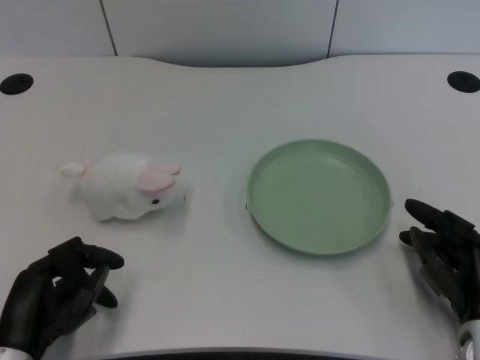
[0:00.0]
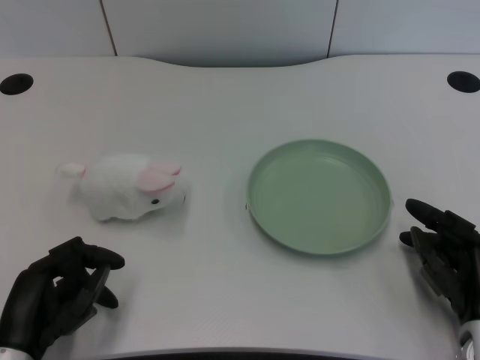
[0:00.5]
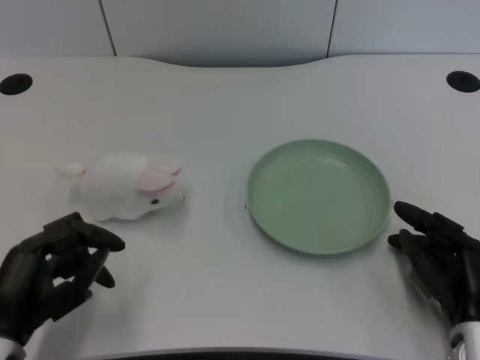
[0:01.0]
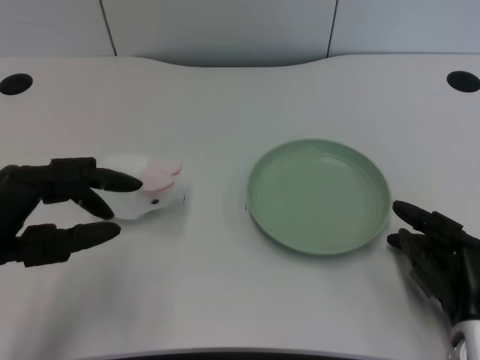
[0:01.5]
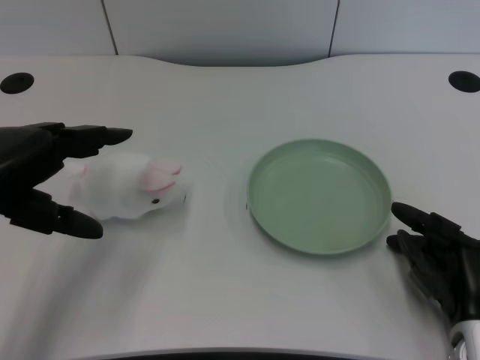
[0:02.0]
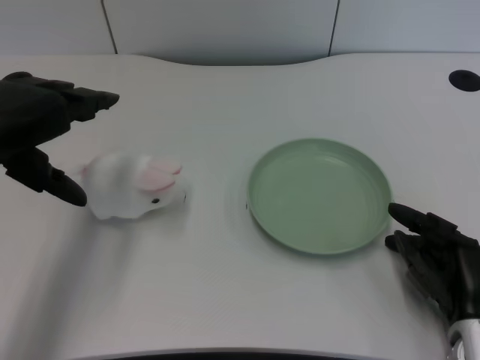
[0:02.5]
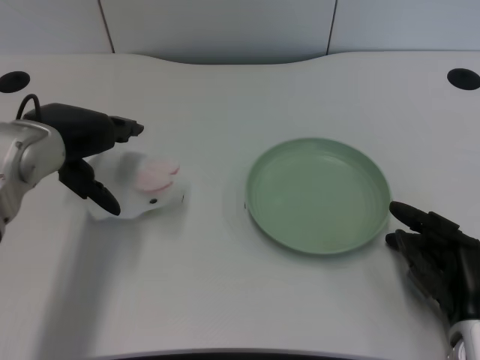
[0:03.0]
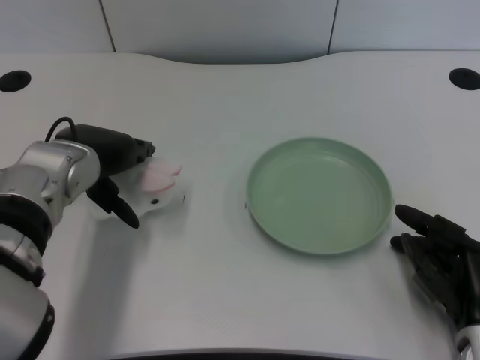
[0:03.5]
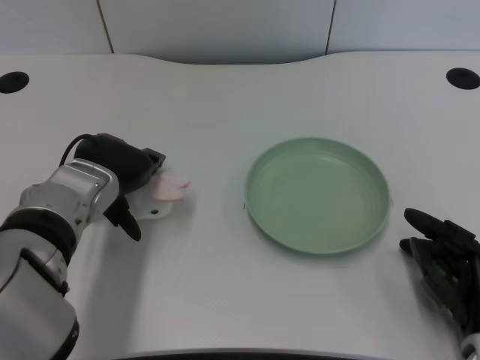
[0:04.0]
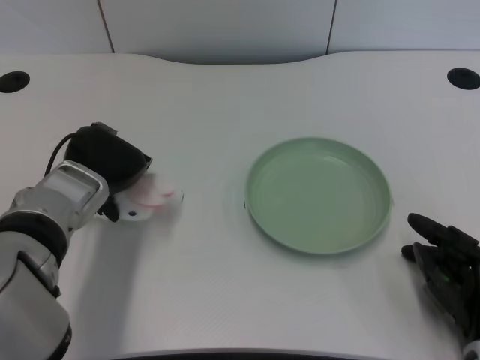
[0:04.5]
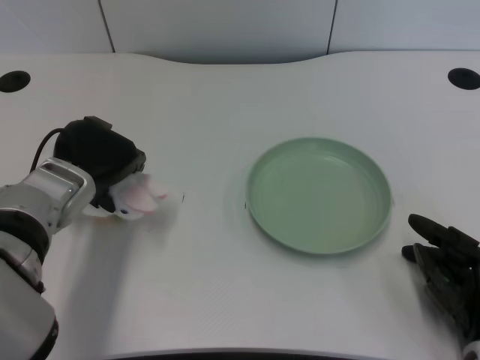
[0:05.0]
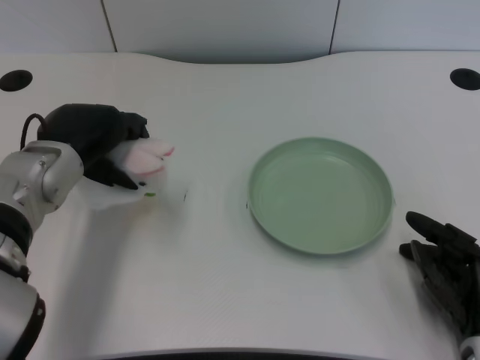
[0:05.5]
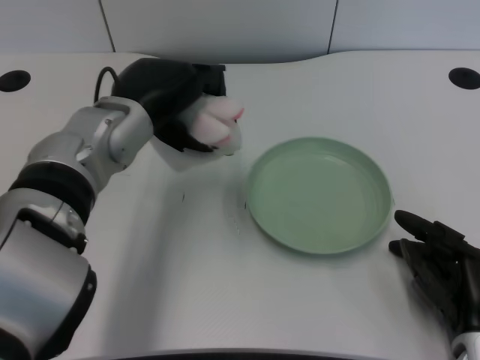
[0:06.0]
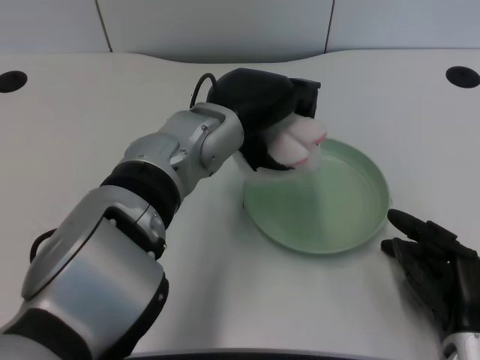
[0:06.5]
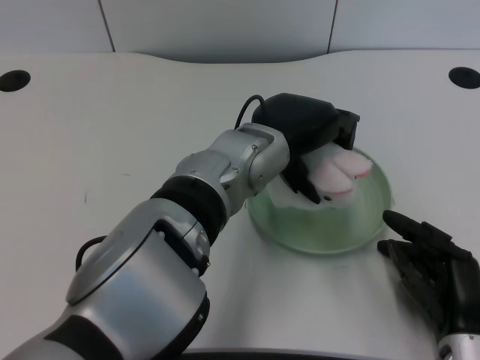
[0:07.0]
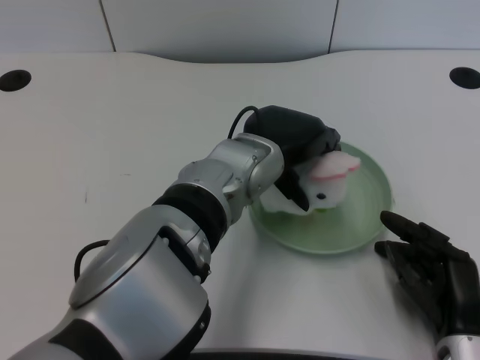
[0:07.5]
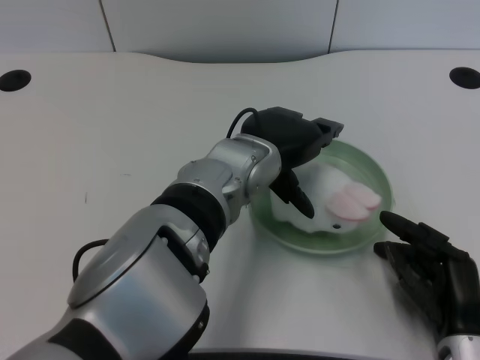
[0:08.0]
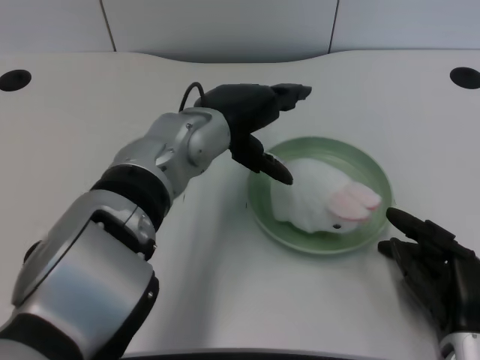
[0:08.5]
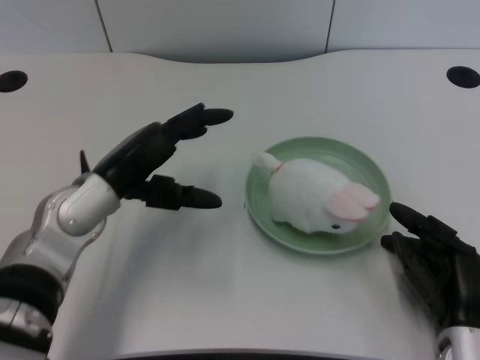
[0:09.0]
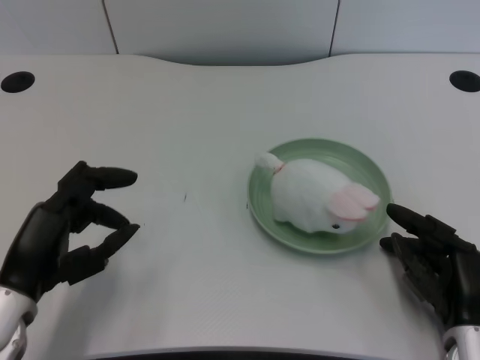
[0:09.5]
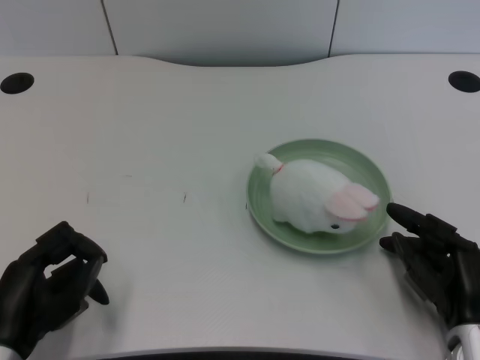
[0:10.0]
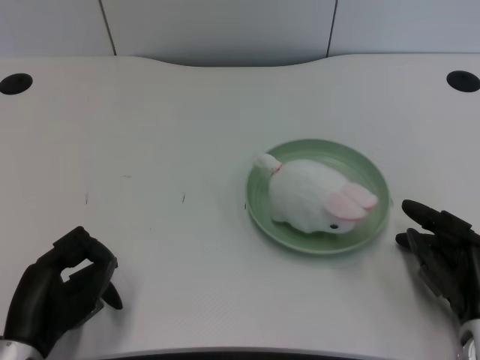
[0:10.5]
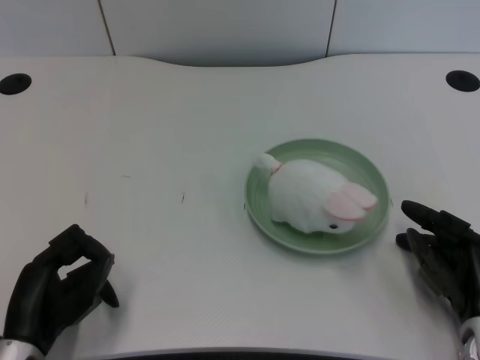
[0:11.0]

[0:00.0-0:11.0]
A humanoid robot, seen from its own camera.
Task of the whole recording: pick up the rabbit doll from the table and place it on the plate.
Step, 0:01.5 to 0:05.0: Grasp the rabbit doll with the left gripper.
Step, 0:05.5 to 0:07.5: Place the rabbit doll into the plate with the left gripper.
0:02.0 to 0:03.5: The left hand is displaced forward and to the right by approximately 15 cm.
0:05.5 to 0:07.5: The left hand heads to the right, covering approximately 20 cm.
0:07.5 to 0:09.0: The left hand travels to the left by some 15 cm.
0:09.0 to 0:11.0: The left hand shifts about 15 cm backward, downward and to the left.

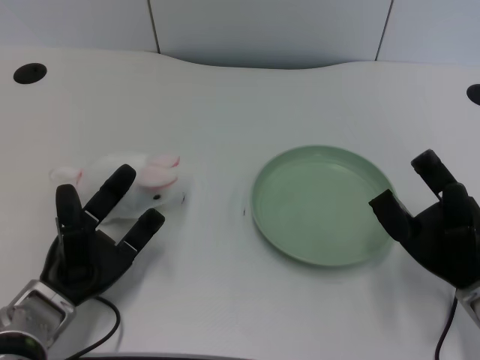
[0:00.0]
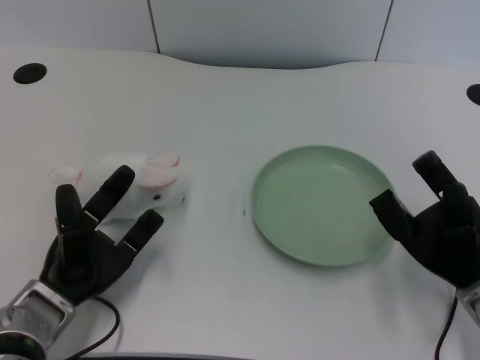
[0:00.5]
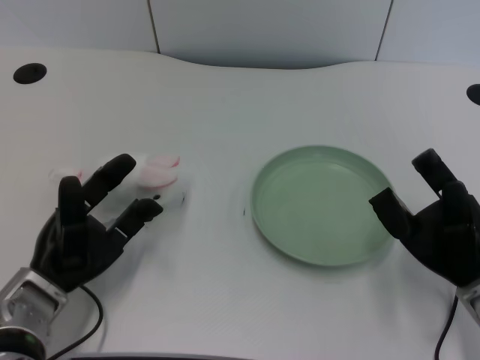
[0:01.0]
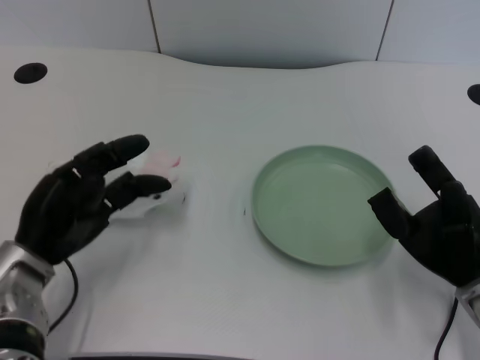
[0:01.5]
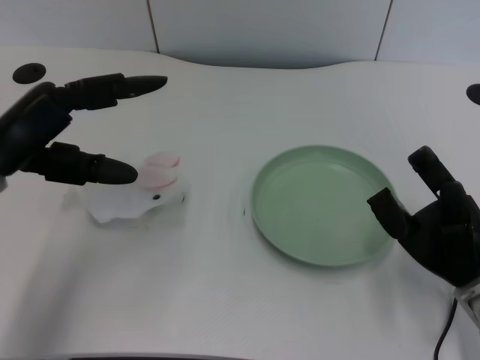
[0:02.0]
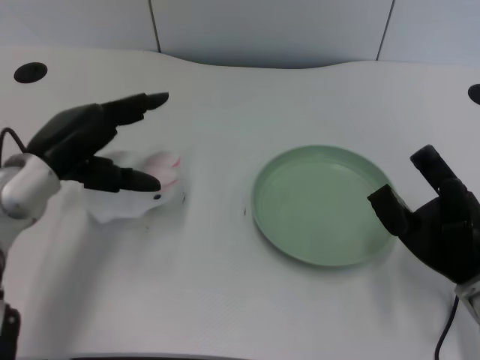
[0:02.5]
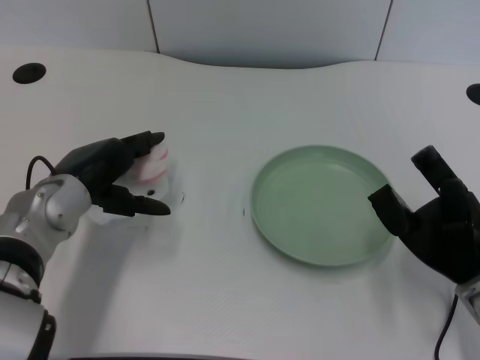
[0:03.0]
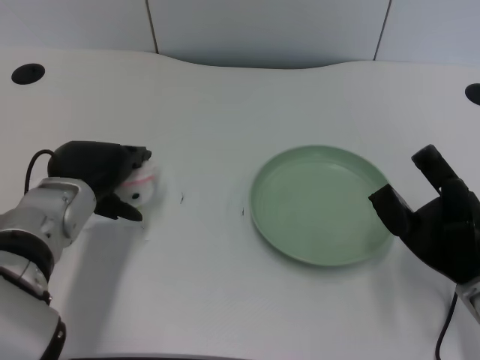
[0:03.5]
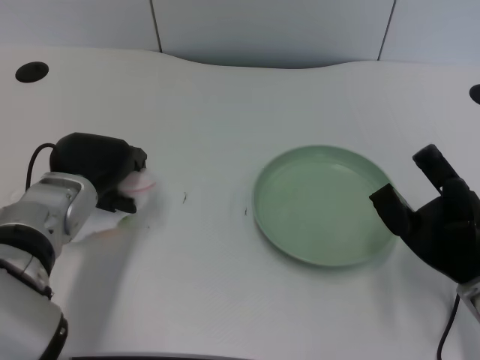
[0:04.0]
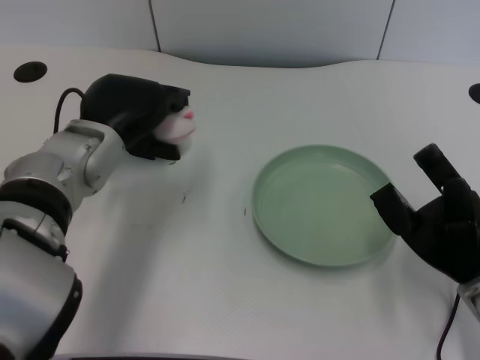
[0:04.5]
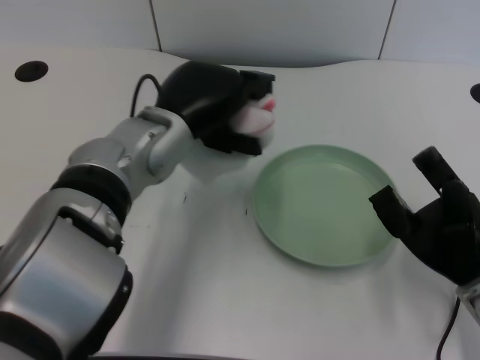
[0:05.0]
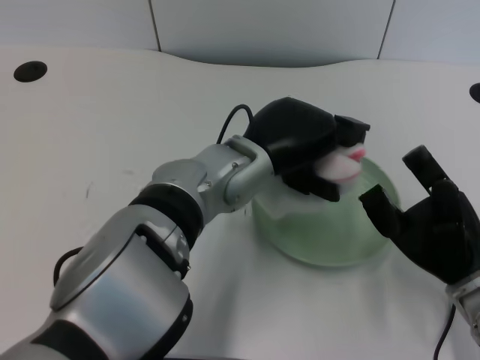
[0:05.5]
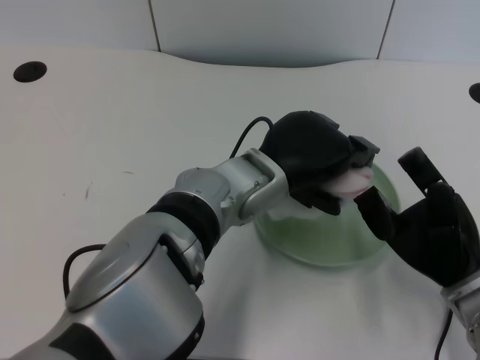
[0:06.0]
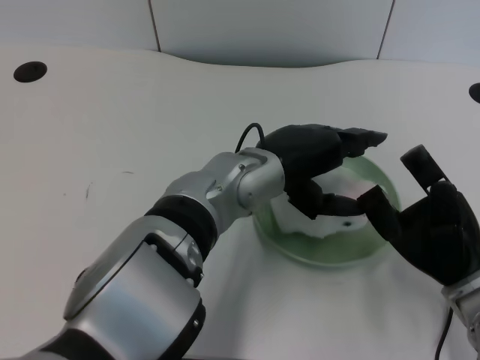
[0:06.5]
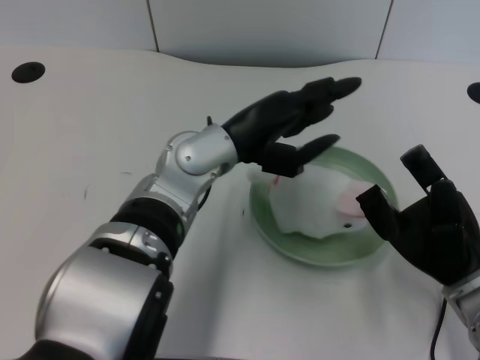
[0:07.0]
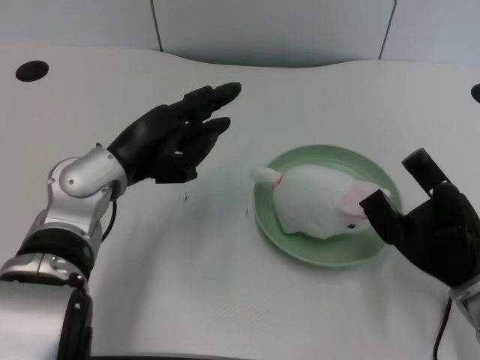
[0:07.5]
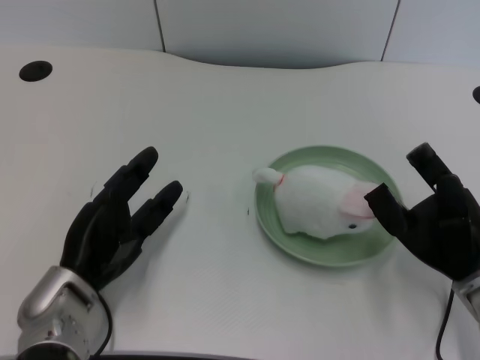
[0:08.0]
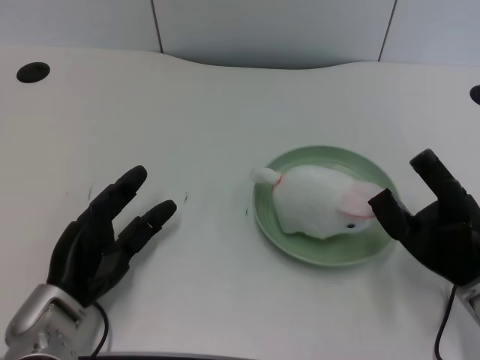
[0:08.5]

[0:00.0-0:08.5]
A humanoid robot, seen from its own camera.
Task of the whole recording: pick up the rabbit doll from the table and place it on the plate.
Step, 0:01.0 to 0:04.0: Grasp the rabbit doll with the left gripper.
Step, 0:04.5 to 0:06.0: Place the rabbit doll into the plate with the left gripper.
0:02.0 to 0:04.0: The left hand heads to the right and downward, covering roughly 10 cm.
0:04.0 to 0:06.5: The left hand heads to the right, covering about 20 cm.
0:06.5 to 0:08.5: The left hand moves to the left and downward, roughly 25 cm.

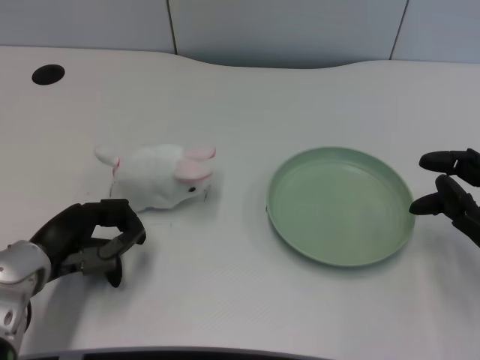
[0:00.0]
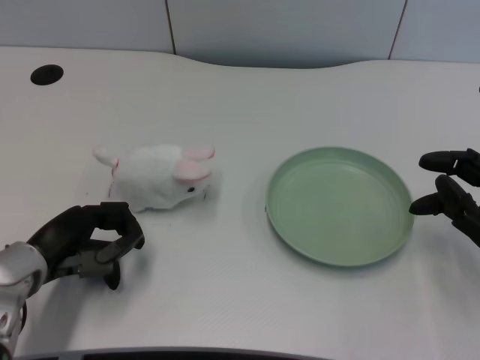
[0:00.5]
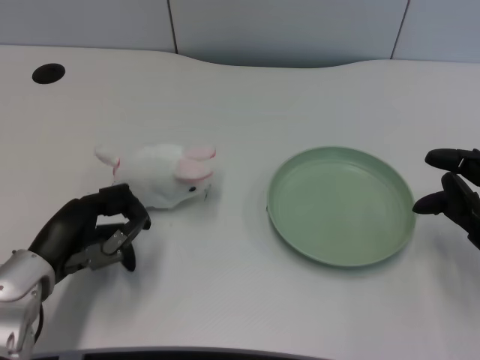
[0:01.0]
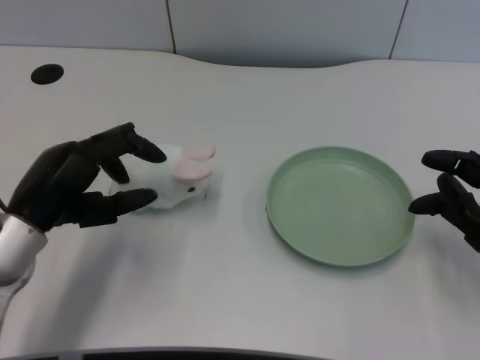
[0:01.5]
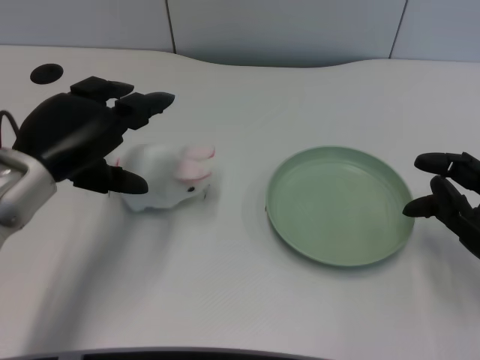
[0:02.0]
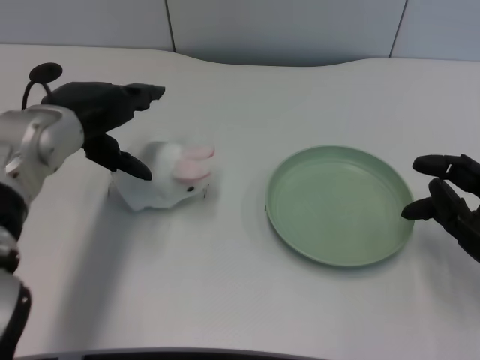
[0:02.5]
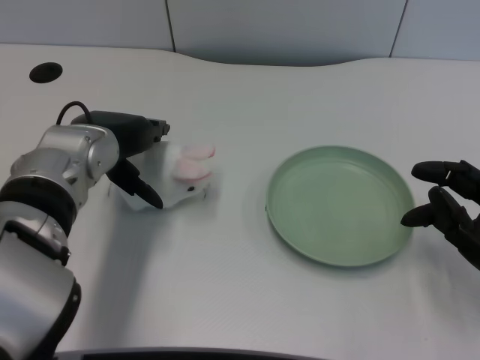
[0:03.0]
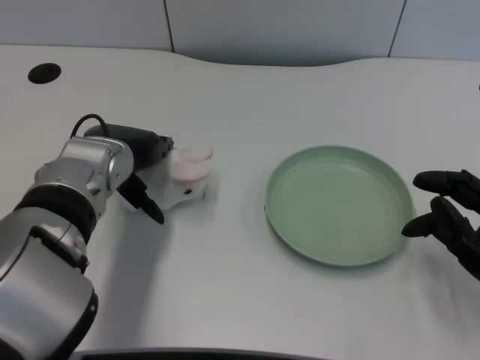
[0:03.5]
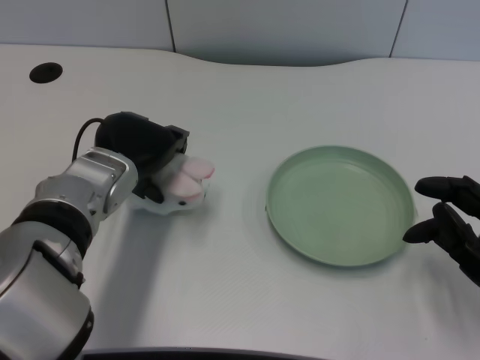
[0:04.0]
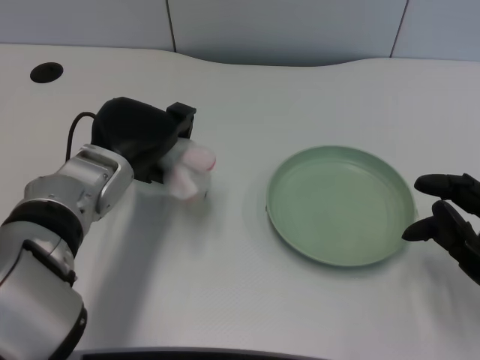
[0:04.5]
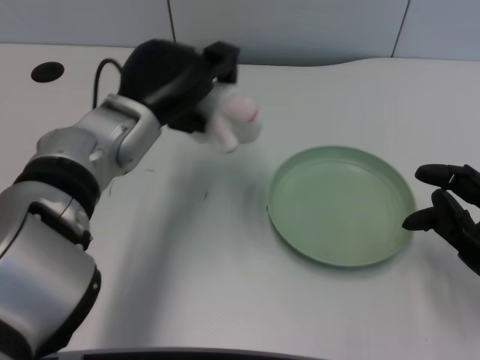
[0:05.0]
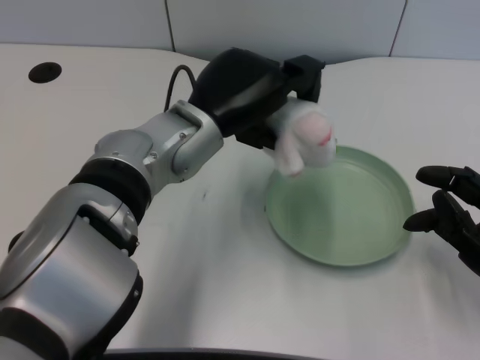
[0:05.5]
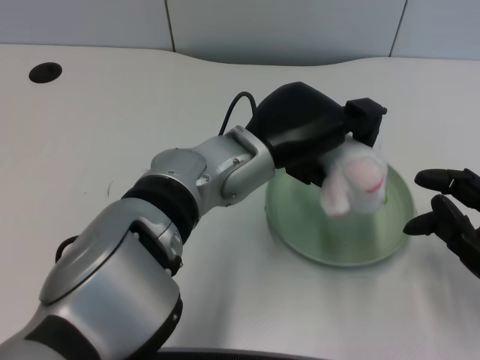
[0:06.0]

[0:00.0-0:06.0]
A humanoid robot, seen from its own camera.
Task of the whole recording: pick up the rabbit doll from the table and place it on the plate.
Step, 0:01.0 to 0:04.0: Grasp the rabbit doll with the left gripper.
0:02.0 to 0:04.0: The left hand goes roughly 5 cm to the right.
0:04.0 to 0:06.0: The left hand moves to the right, roughly 15 cm.
